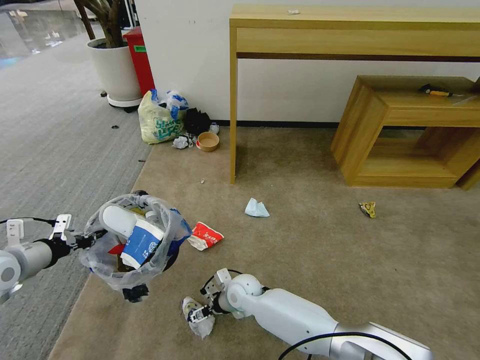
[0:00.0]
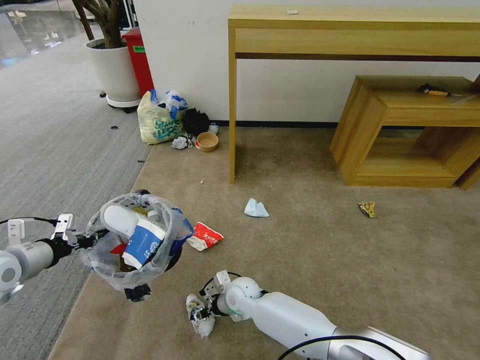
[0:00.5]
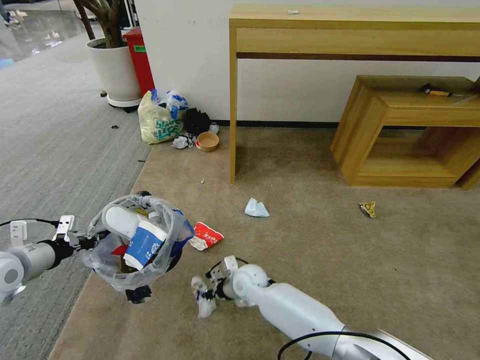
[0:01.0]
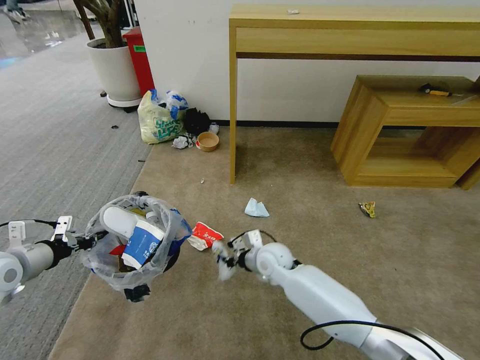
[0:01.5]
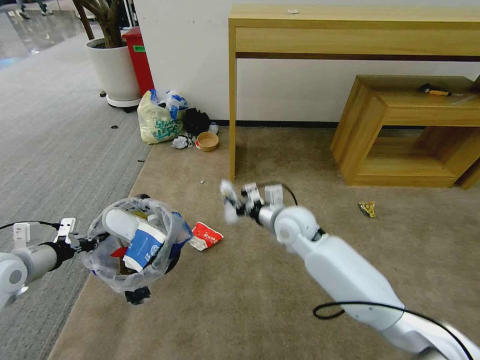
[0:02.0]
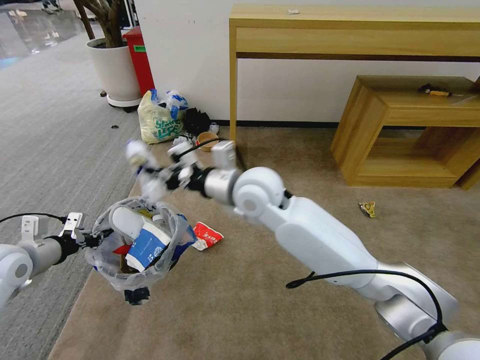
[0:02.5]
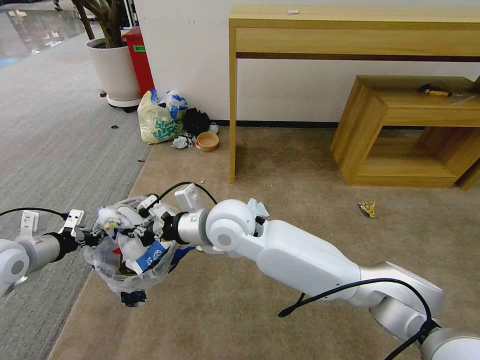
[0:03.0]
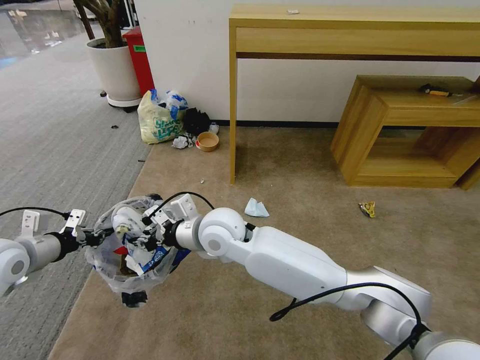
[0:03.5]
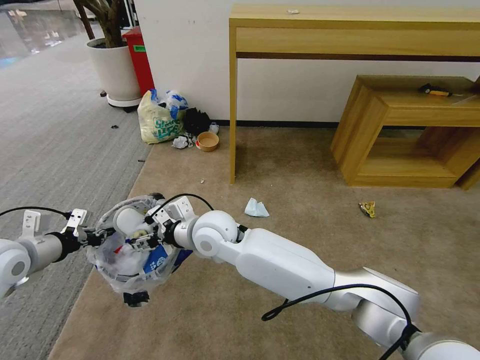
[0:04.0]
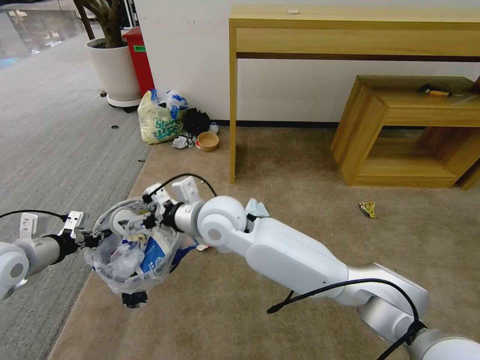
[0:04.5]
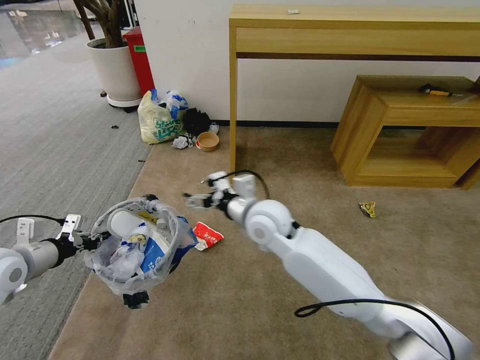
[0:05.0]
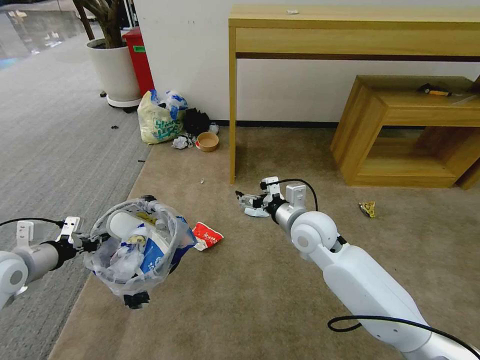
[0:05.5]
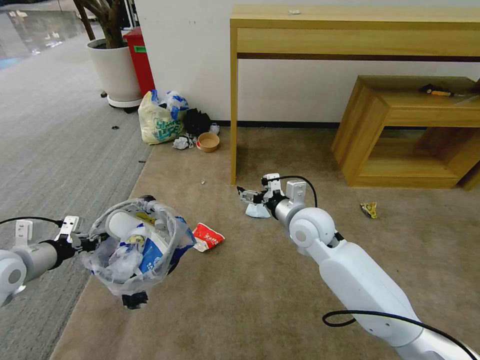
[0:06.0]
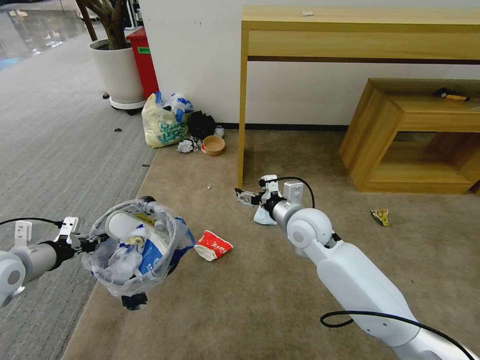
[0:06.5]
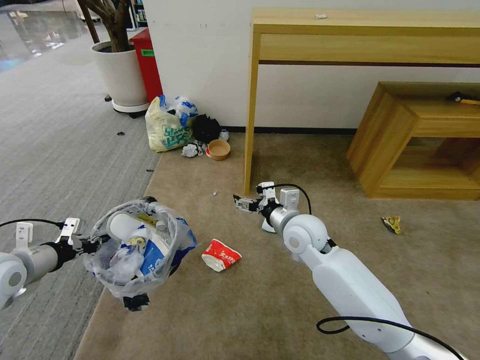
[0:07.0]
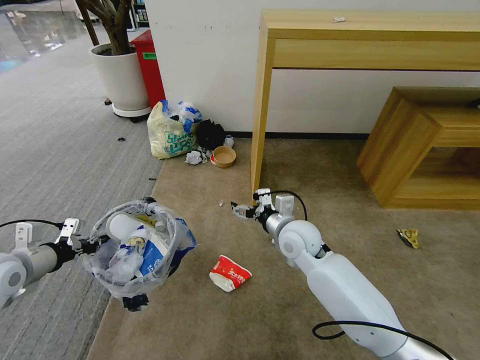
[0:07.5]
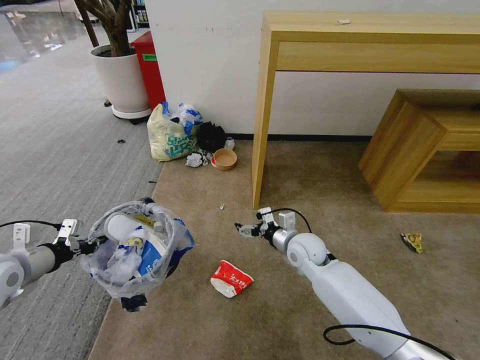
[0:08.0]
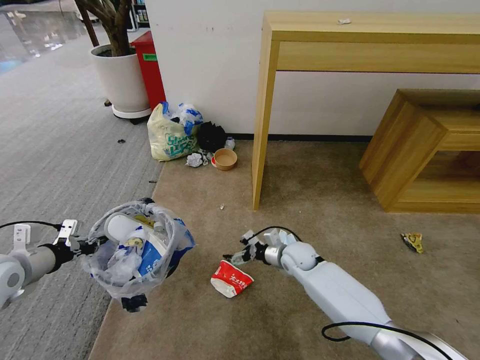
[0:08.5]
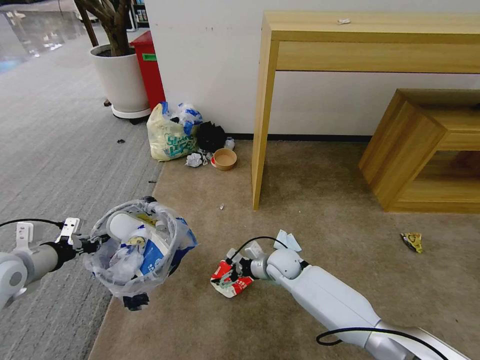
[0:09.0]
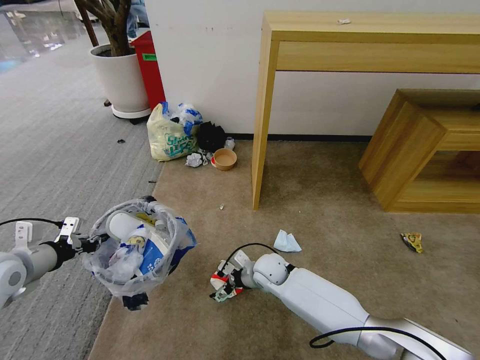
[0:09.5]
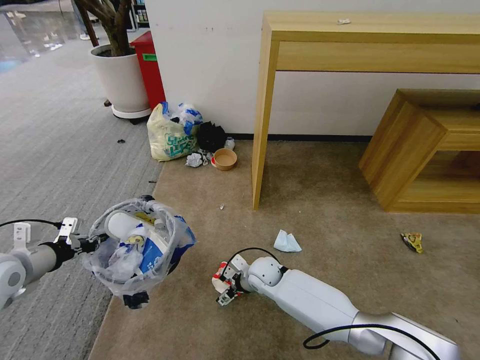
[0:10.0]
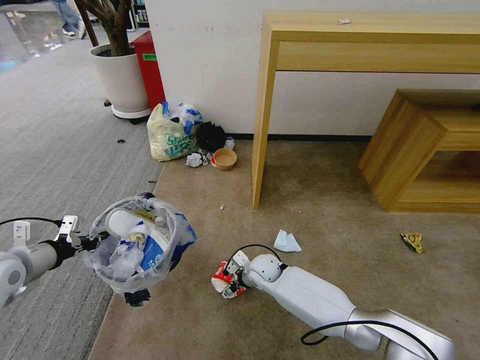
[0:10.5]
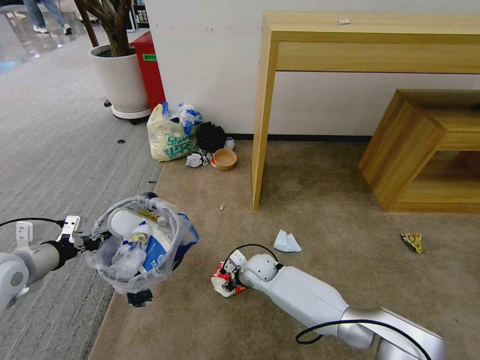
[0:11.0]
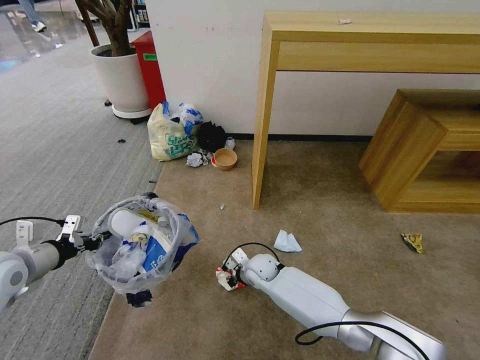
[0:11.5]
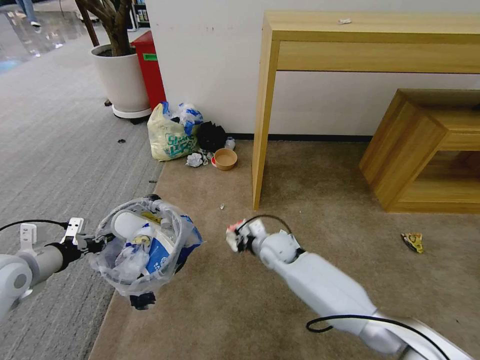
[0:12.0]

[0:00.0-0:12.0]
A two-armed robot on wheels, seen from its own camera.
Task of the whole recording: Pick up the trash bin and place the garbage on the floor into it.
0:00.0 to 0:02.0: The right gripper travels upward and to the right by some 25 cm, and closes its fingers.
0:02.0 to 0:04.0: The right gripper shifts roughly 20 cm to the left, and opens.
0:04.0 to 0:06.0: The right gripper goes about 20 cm to the right.
0:06.0 to 0:08.0: The right gripper shifts roughly 10 cm downward.
0:08.0 to 0:10.0: The right gripper goes some 15 cm to the left and downward.
0:10.0 to 0:12.0: The right gripper travels upward by about 5 cm, and closes.

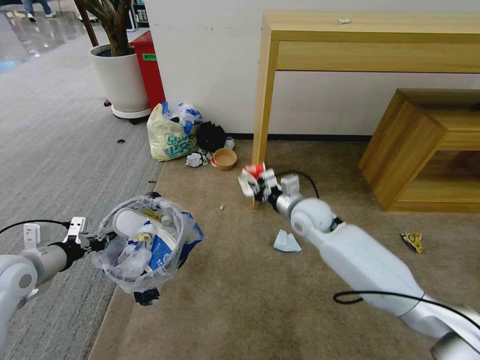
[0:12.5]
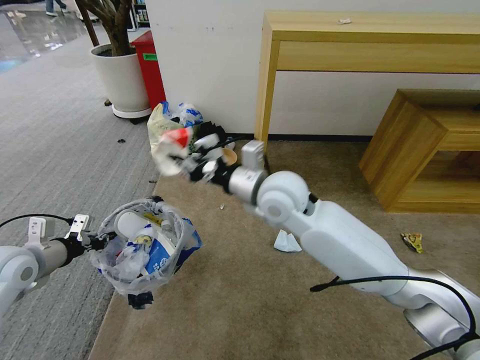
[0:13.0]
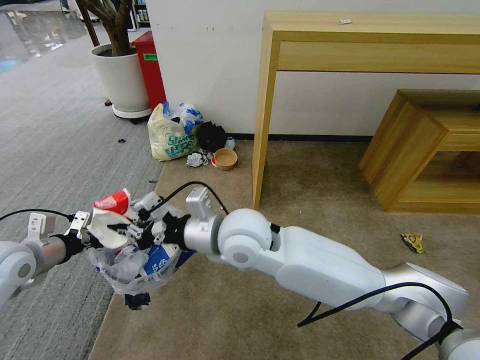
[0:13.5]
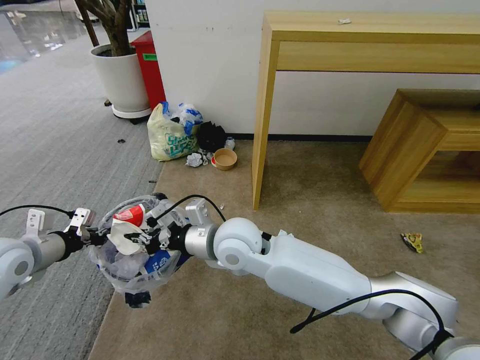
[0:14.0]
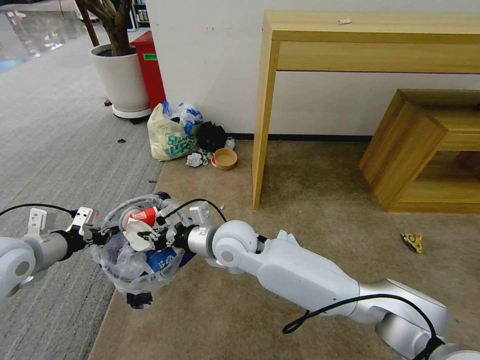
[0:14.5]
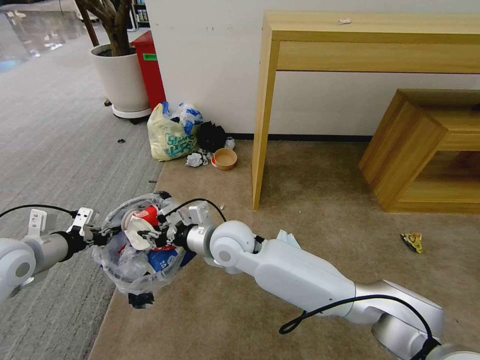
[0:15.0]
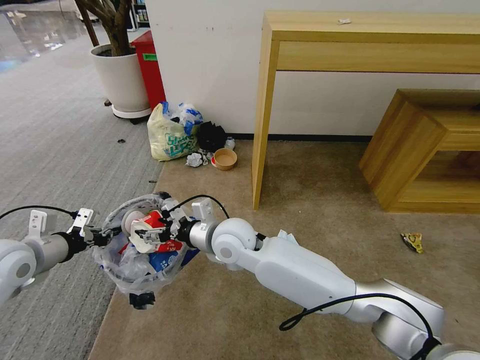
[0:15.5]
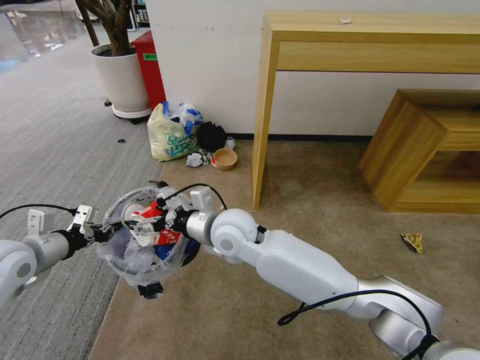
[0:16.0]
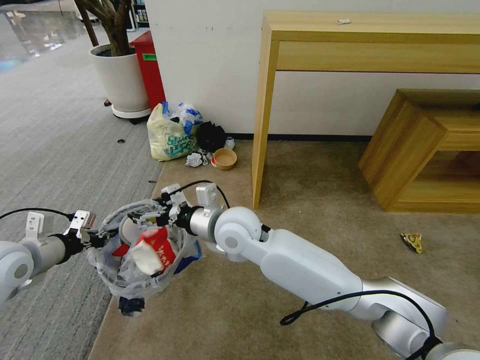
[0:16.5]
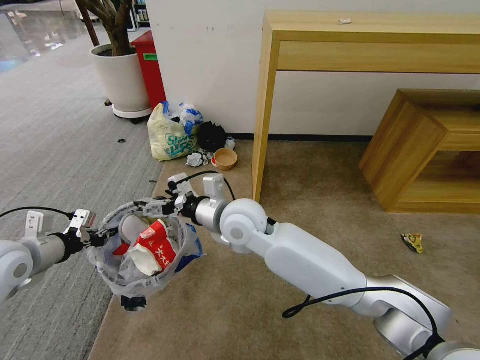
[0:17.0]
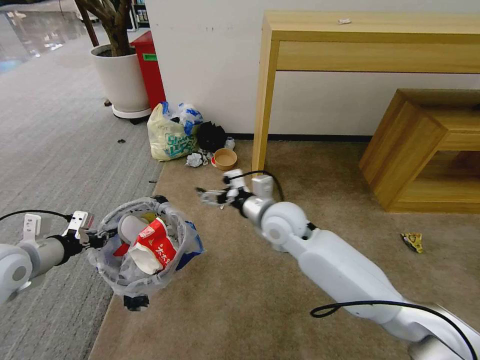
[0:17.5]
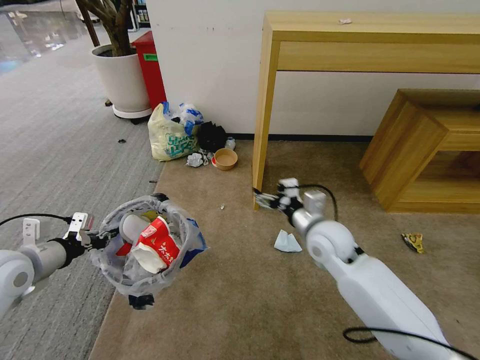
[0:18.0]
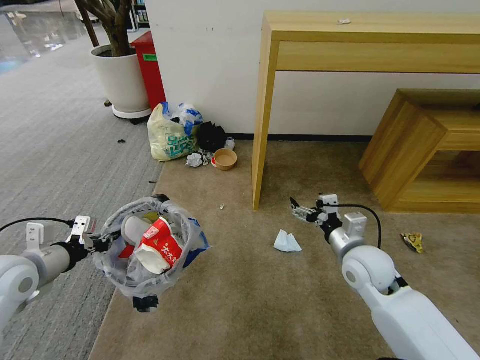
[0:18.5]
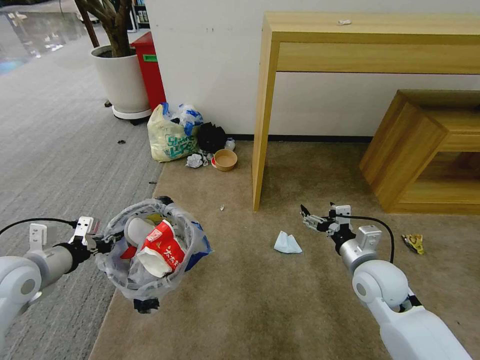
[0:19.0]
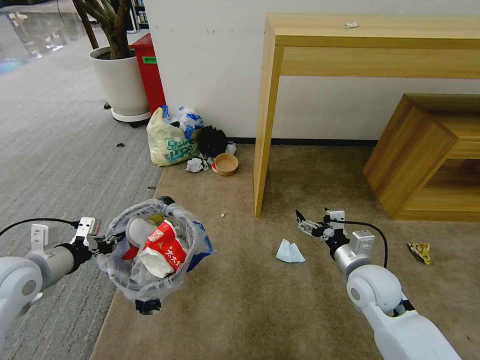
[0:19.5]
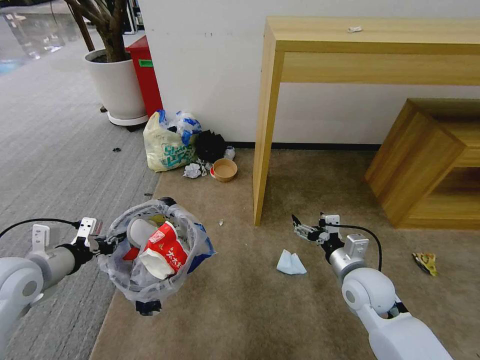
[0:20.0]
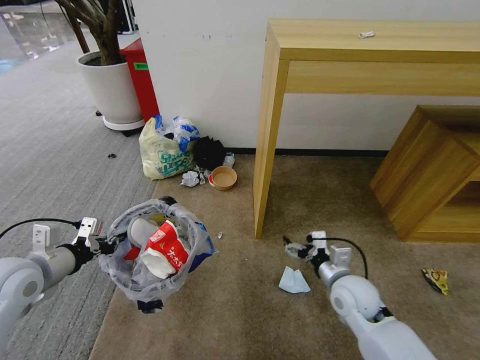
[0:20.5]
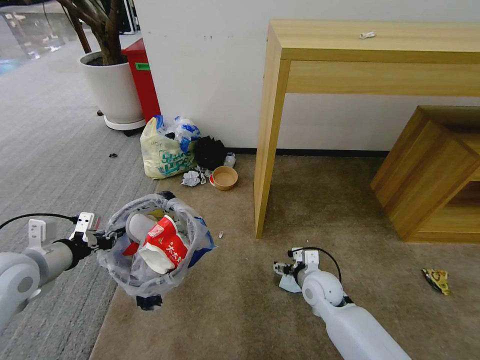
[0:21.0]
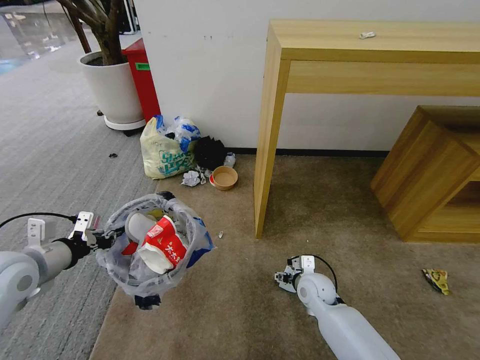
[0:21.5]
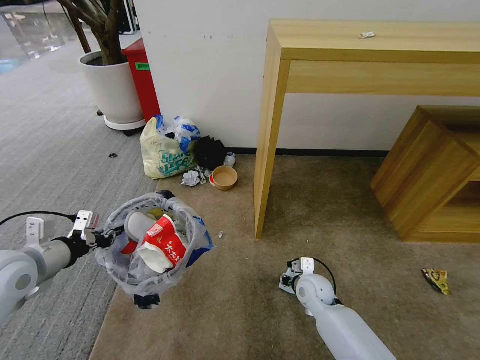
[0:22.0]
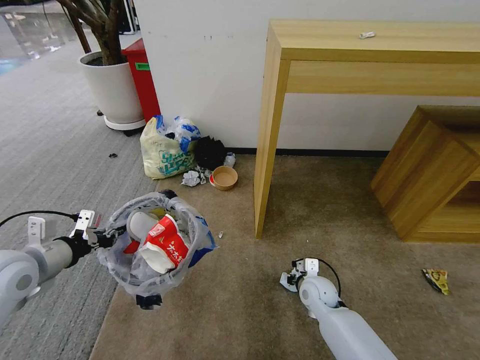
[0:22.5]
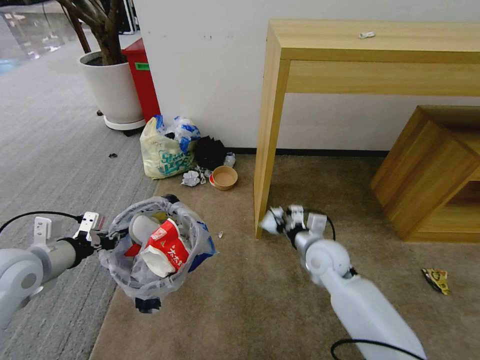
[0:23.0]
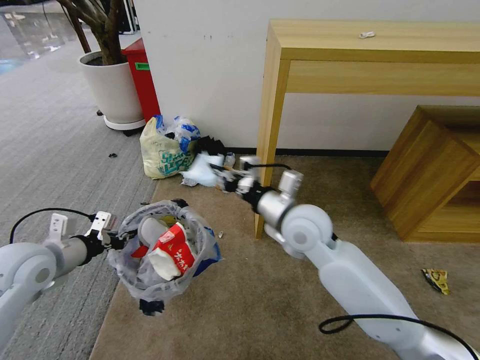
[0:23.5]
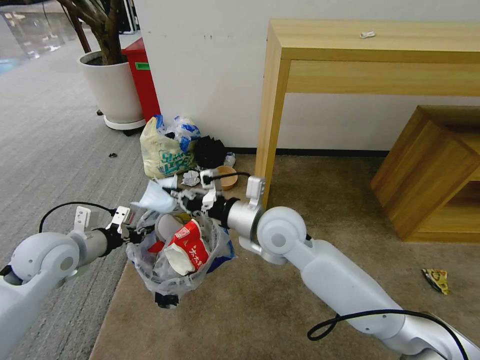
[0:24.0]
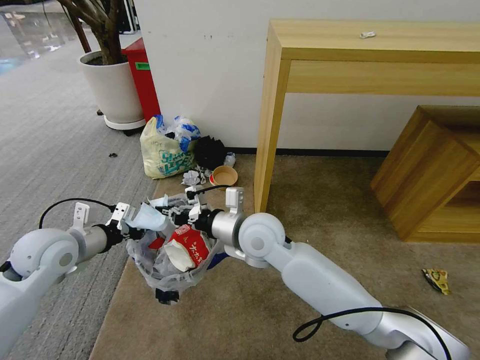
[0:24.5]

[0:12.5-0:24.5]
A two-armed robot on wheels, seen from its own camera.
Task of the whole recording: Pick up the trash bin and place the garbage on the floor into it.
0:12.5 to 0:14.5: The right gripper travels to the left and backward by some 20 cm.
0:14.5 to 0:16.5: The right gripper opens its fingers.
0:16.5 to 0:18.5: The right gripper is displaced to the right by some 25 cm.
0:18.5 to 0:20.5: The right gripper shifts roughly 5 cm downward.
0:20.5 to 0:22.5: The right gripper moves downward and forward, some 10 cm, and closes up.
0:22.5 to 0:24.5: The right gripper moves upward and to the left, roughly 30 cm. The left gripper travels forward by roughly 5 cm.

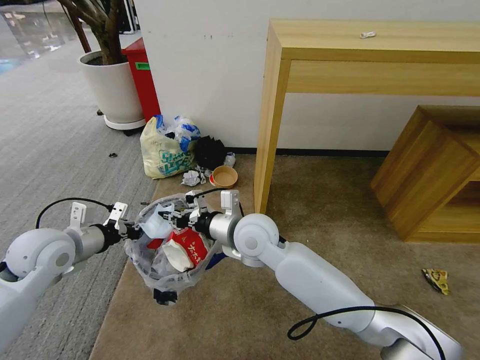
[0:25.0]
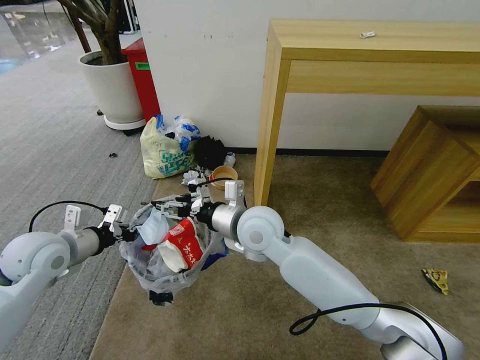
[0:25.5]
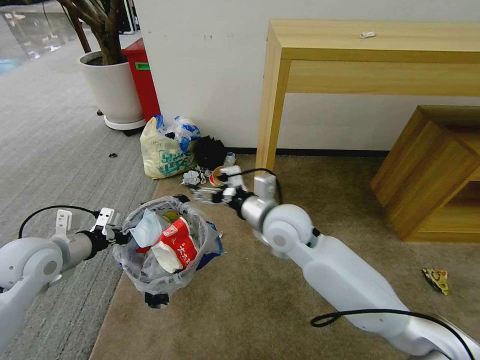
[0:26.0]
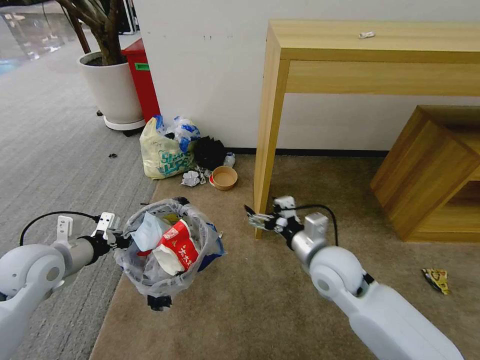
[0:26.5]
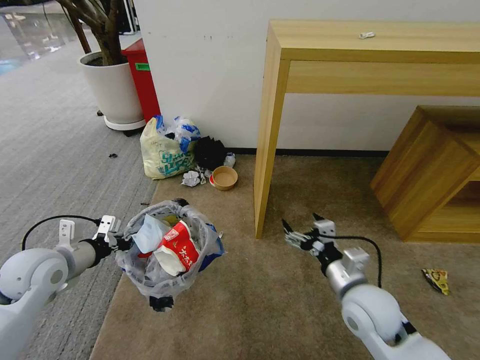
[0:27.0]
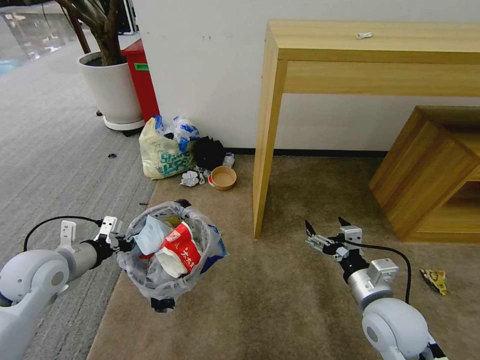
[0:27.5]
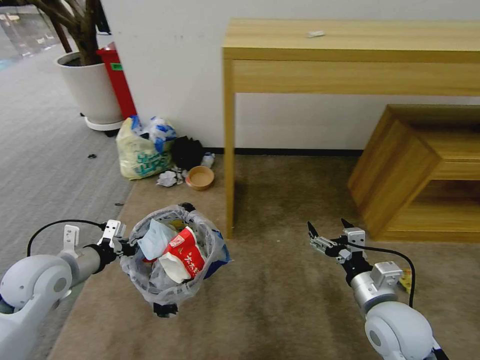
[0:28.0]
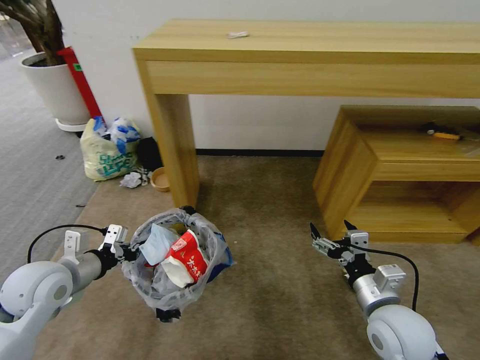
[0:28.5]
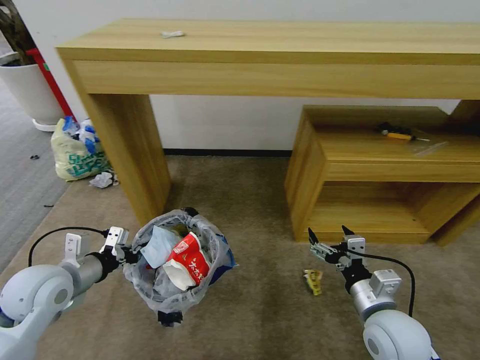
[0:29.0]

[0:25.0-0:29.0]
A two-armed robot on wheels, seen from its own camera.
Task of the whole recording: Pick up the trash bin and place the garbage on the floor into it.
0:25.0 to 0:27.0: The right gripper is displaced to the right and backward by approximately 25 cm, and opens its fingers.
0:27.0 to 0:29.0: The right gripper goes approximately 5 cm backward.
